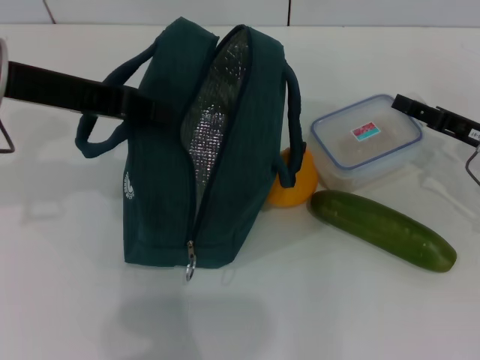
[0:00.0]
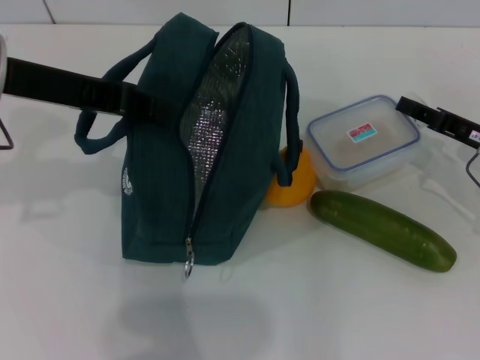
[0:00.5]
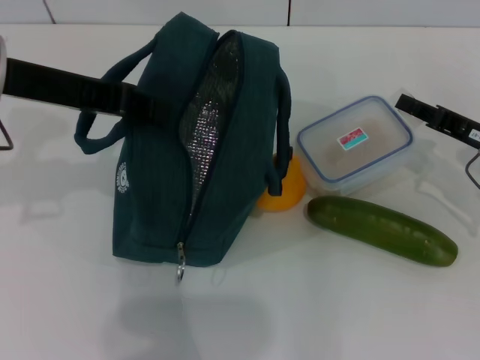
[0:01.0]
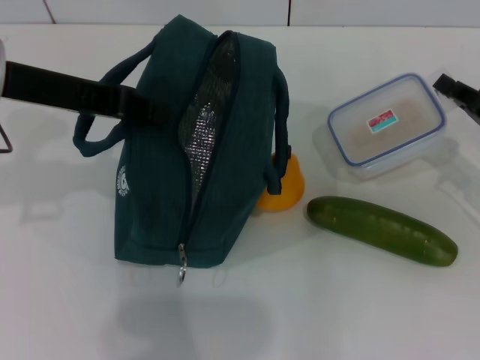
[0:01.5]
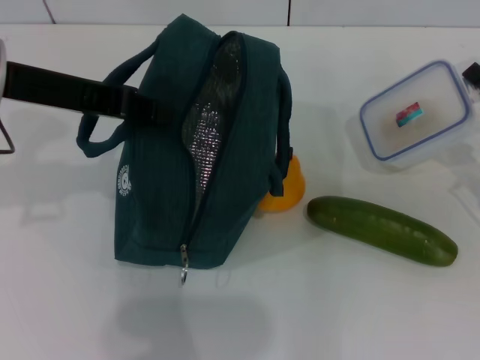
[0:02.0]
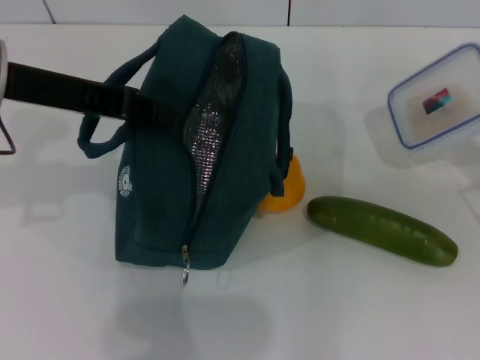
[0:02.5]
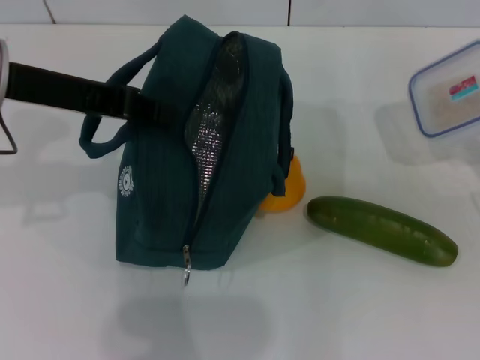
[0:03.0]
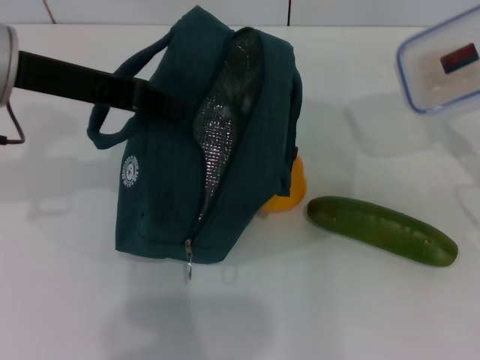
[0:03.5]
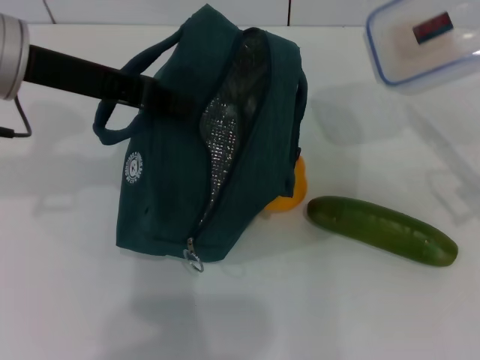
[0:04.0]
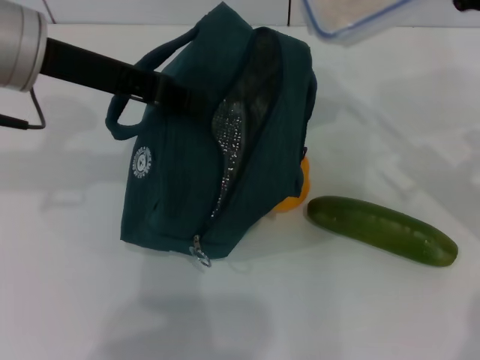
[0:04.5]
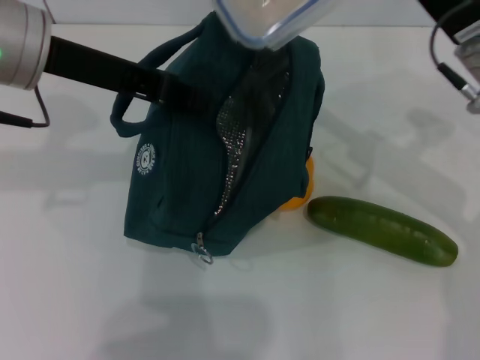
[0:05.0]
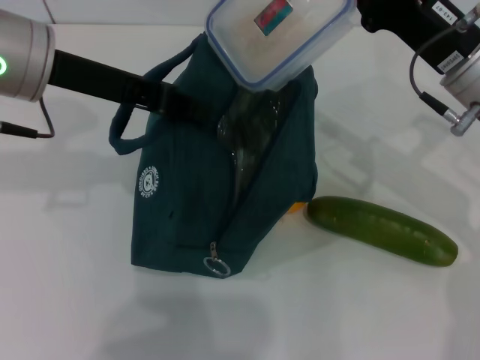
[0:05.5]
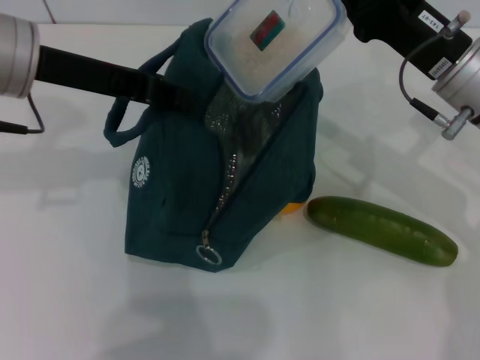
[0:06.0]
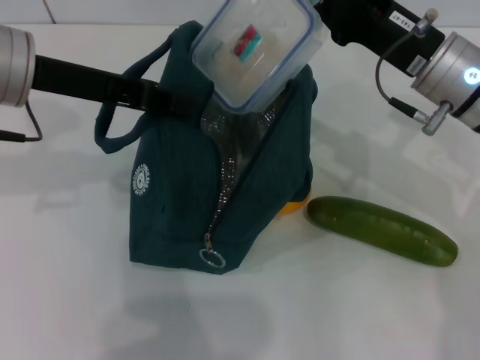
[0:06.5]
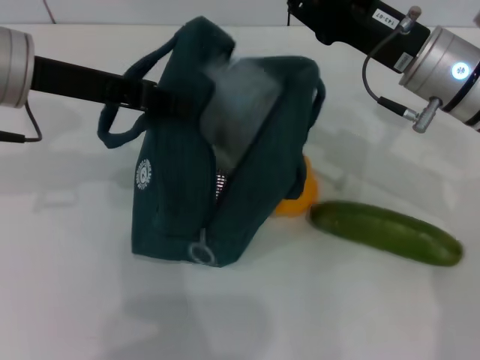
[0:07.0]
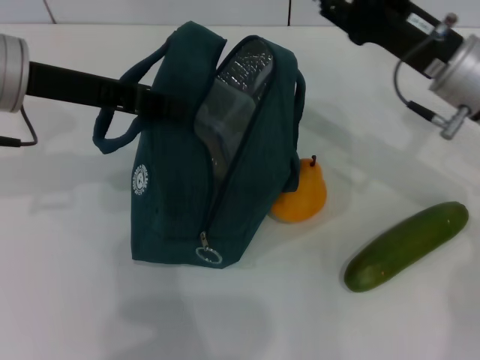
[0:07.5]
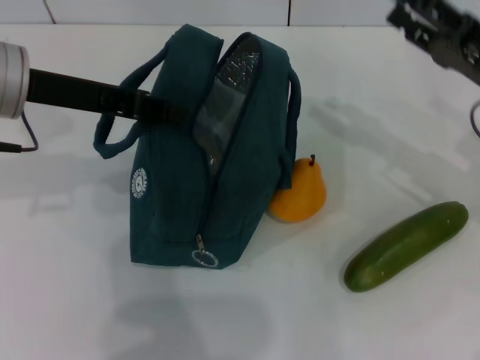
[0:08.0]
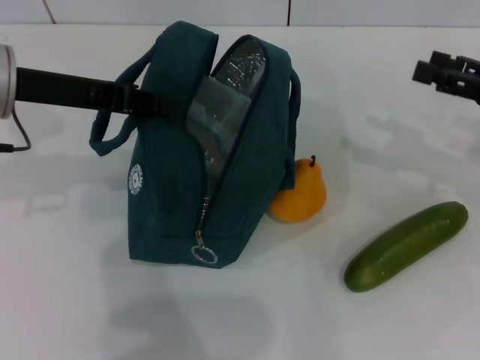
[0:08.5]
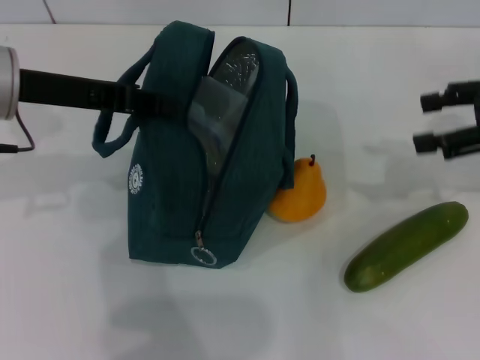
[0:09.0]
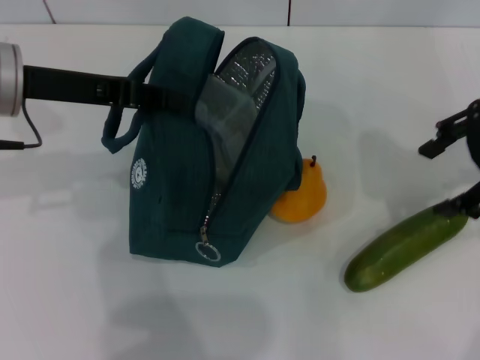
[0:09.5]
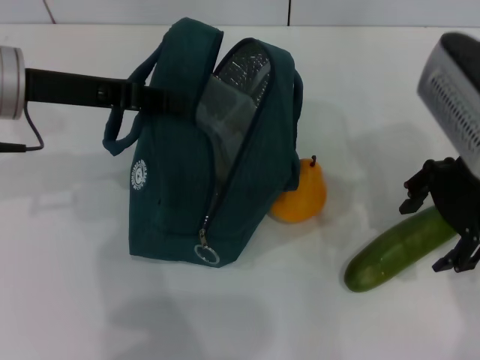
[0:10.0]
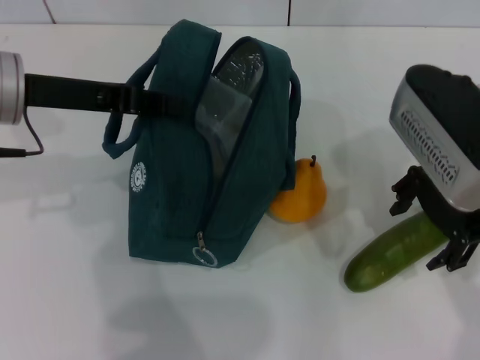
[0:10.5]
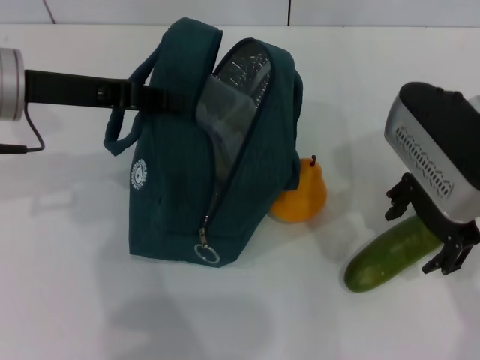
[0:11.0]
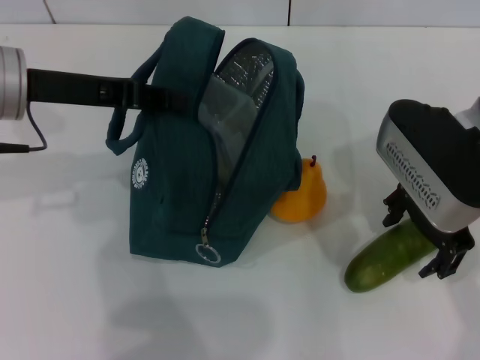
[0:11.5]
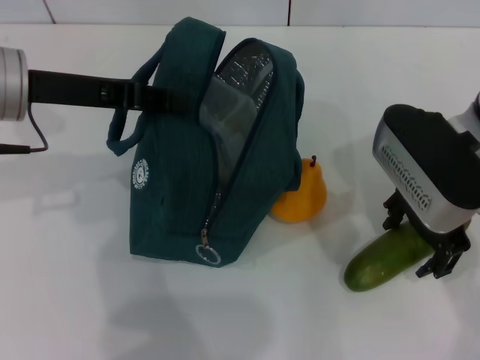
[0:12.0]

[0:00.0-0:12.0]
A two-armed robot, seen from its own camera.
Step, 1.5 to 7.0 s: Place the lunch box into the lunch bag with your right hand.
0.0 to 2.0 s: The right gripper shifts by about 5 cm, and closes up.
4.0 to 6.0 s: The right gripper goes roughly 10 cm to the left.
6.0 to 8.0 s: The right gripper shifts roughly 10 cm to the right, and opens up.
8.0 to 10.0 s: The right gripper travels upward and to the left by some 15 cm.
10.0 to 12.0 s: The right gripper travels downward by approximately 5 cm.

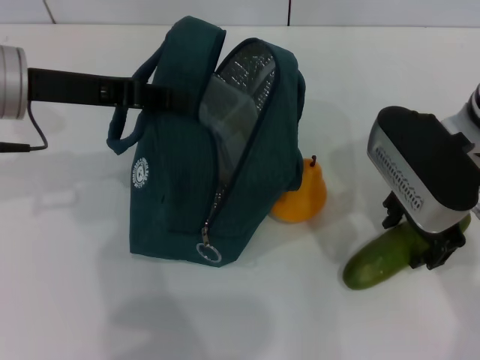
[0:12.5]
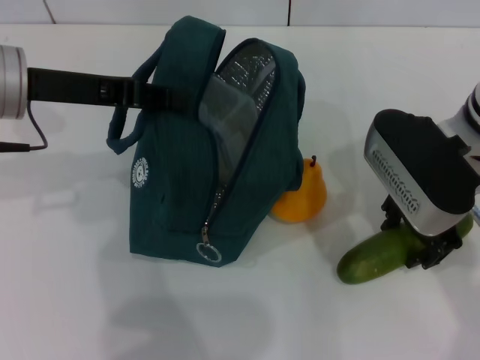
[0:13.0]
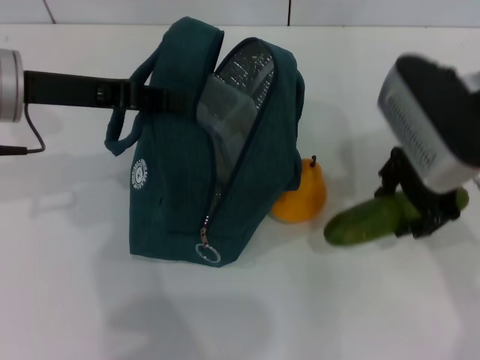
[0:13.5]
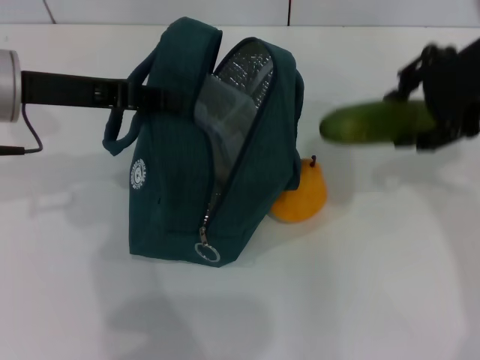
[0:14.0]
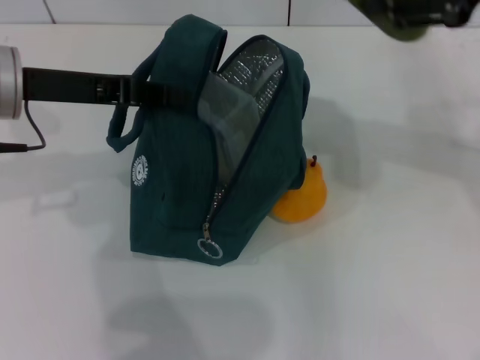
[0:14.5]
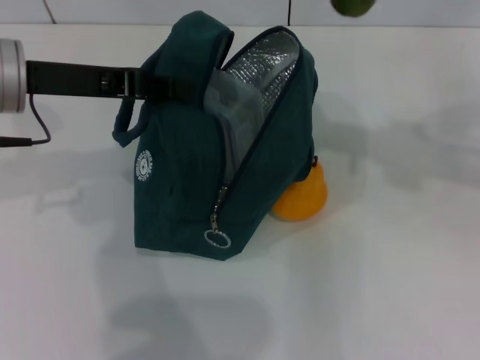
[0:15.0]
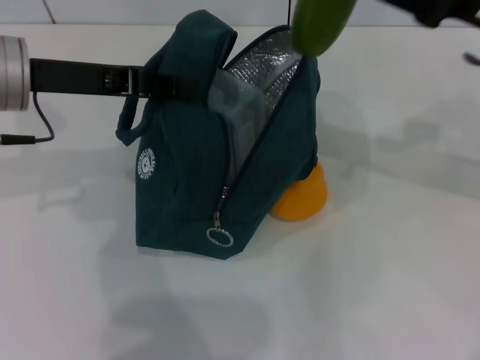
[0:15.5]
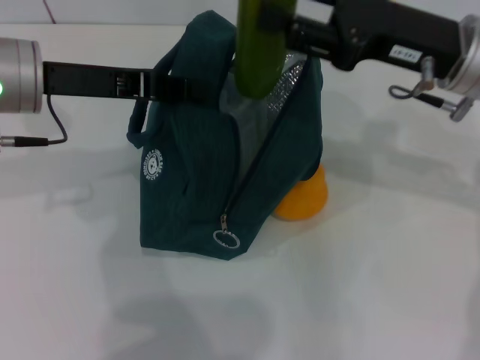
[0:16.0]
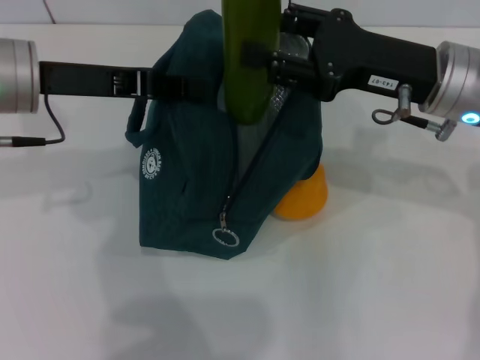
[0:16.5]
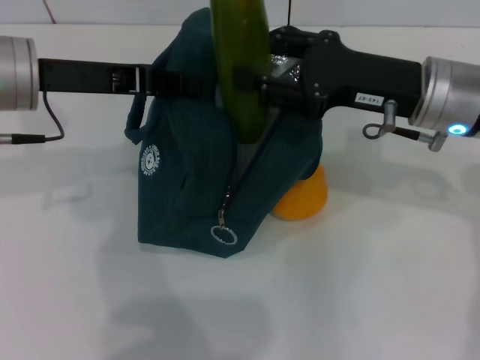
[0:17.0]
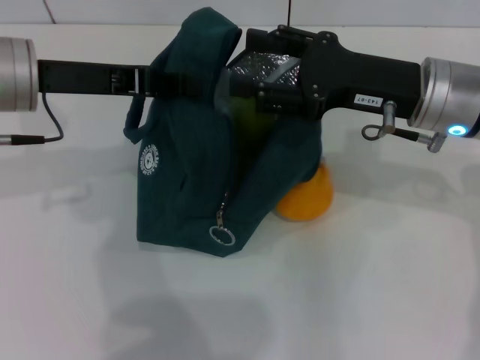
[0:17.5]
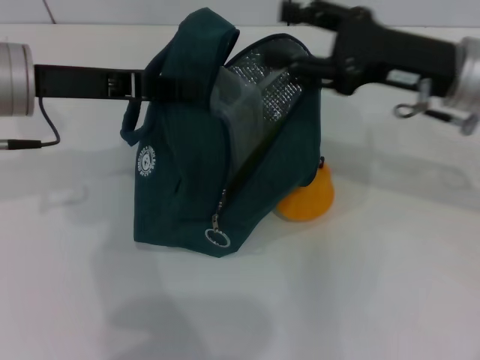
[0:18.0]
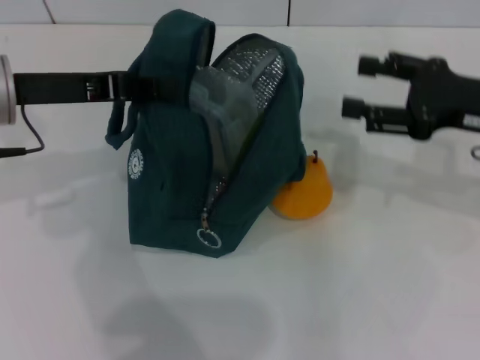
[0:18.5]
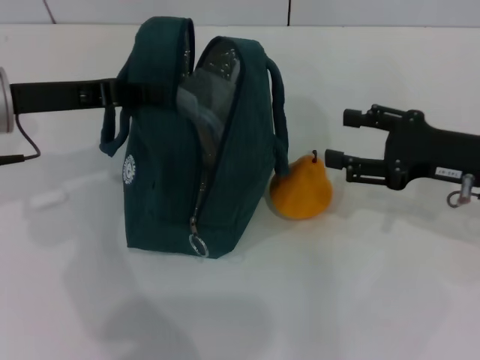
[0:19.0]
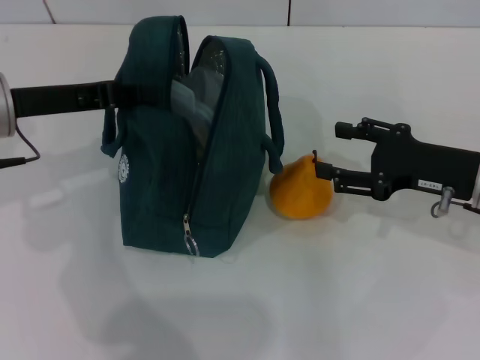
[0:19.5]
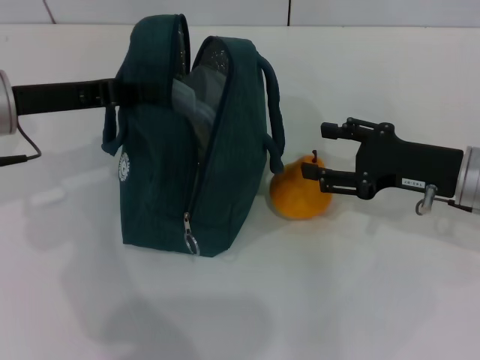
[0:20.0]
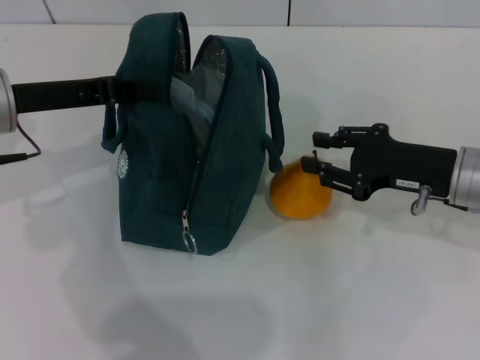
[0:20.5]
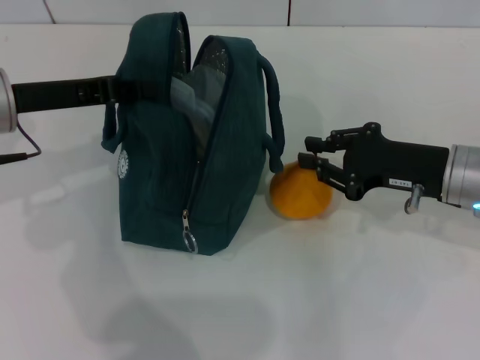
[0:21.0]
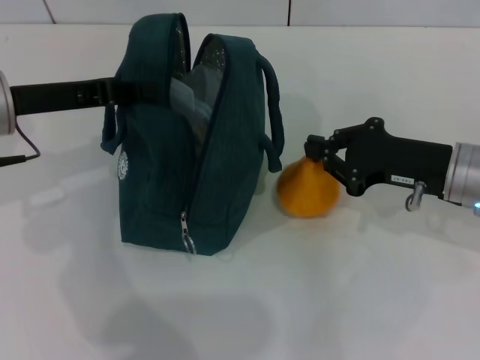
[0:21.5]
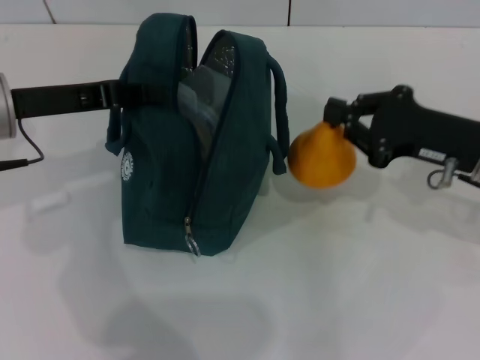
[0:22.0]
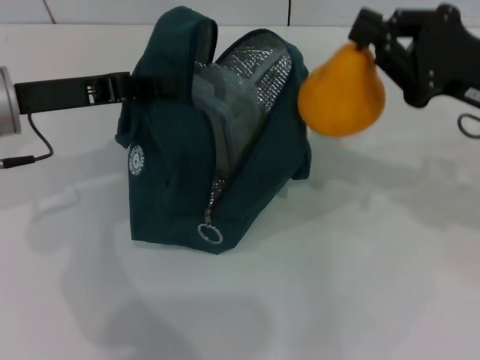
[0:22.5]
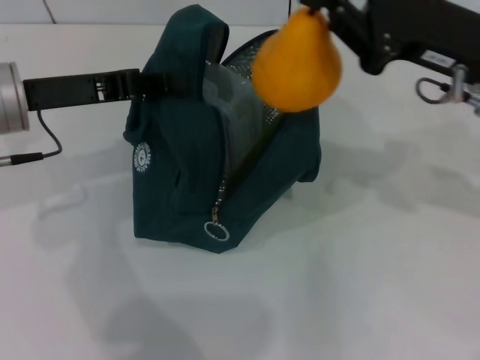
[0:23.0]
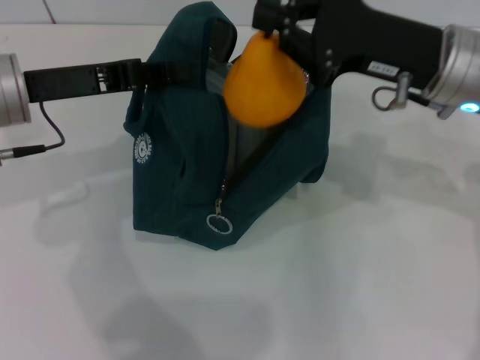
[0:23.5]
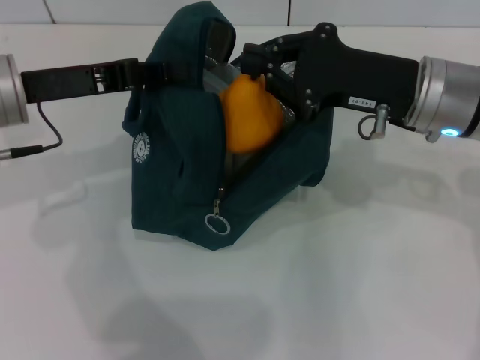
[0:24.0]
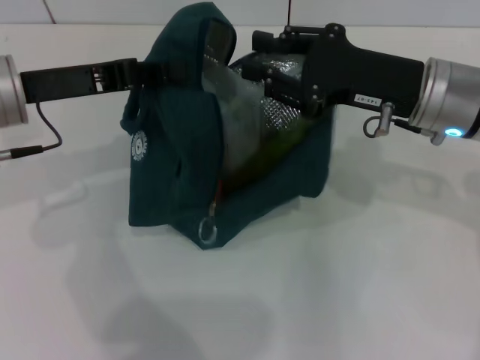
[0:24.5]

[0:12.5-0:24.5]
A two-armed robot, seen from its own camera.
Step, 13.0 to 17.5 s: Put the cucumber into the lunch bag with your right hand.
Step, 18.0 to 21.0 s: Grab the pear with your right hand.
12.5 to 14.5 s: The right gripper moves upward and to the right, roughly 15 cm.
14.5 to 16.5 s: The right gripper shifts approximately 15 cm downward.
16.5 to 18.5 s: The right gripper shifts about 10 cm to the right.
18.5 to 20.5 s: The right gripper heads downward, covering roughly 5 cm.
20.5 to 22.5 s: The right gripper goes roughly 10 cm upward, and closes.
22.5 to 24.5 s: The right gripper goes approximately 5 cm to the left.

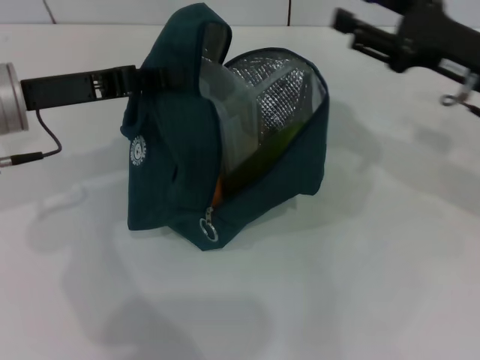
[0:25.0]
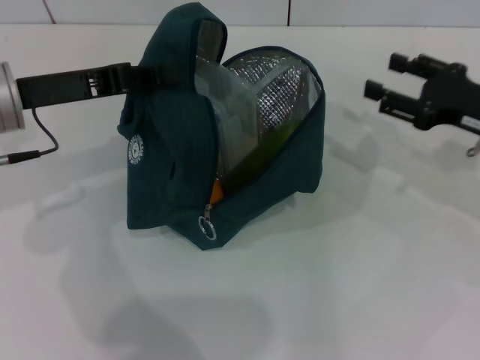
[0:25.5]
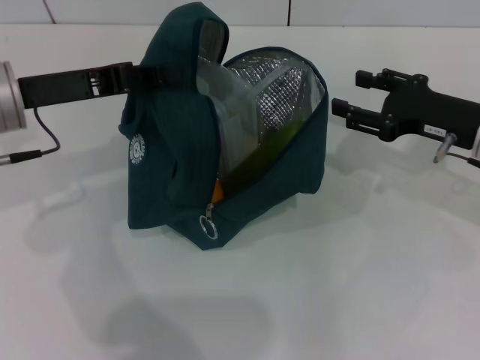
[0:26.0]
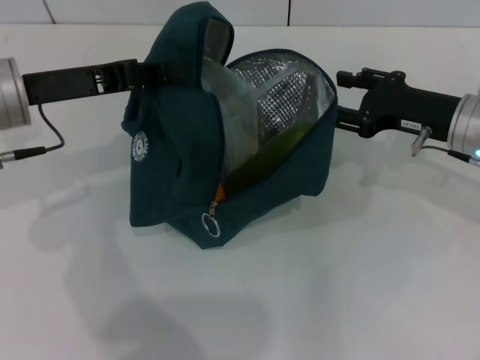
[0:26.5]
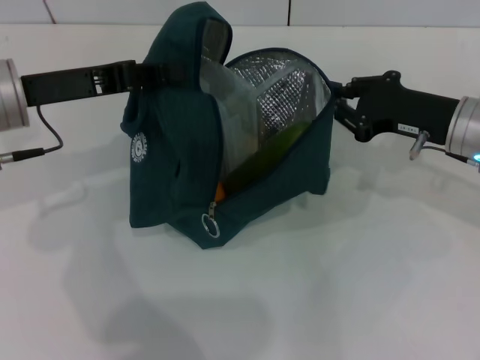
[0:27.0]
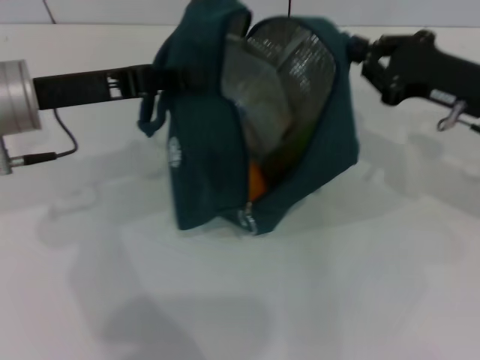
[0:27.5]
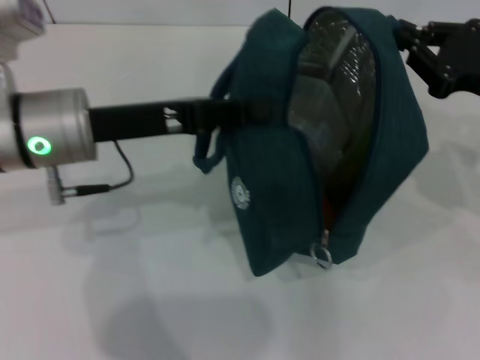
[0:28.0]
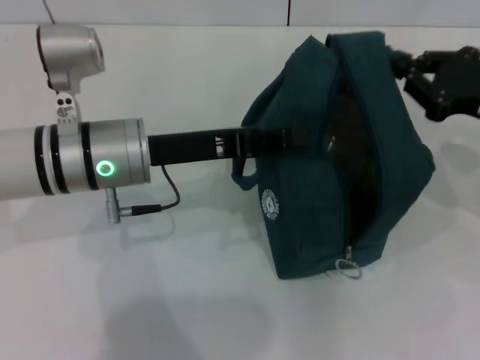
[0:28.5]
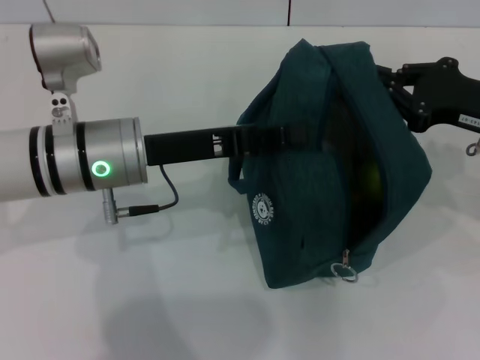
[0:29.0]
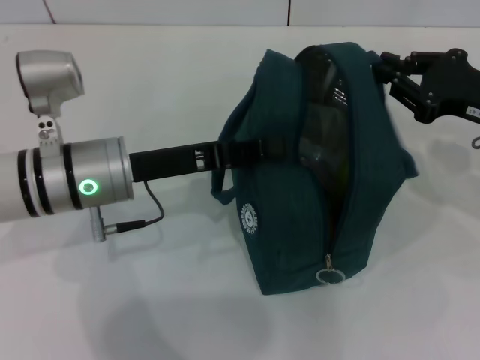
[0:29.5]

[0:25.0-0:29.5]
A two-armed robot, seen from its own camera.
25.0 to 27.0 s: The right gripper shifts by some 5 cm.
27.0 to 29.5 s: The left gripper moves to the right and downward, about 10 cm, while the right gripper travels to the right by approximately 5 cm.
